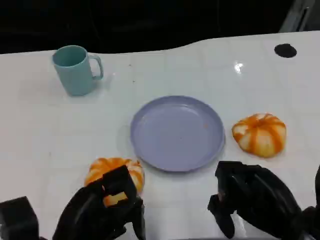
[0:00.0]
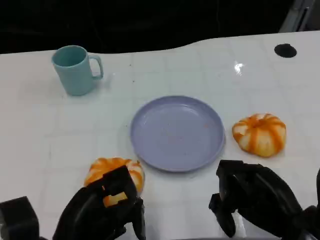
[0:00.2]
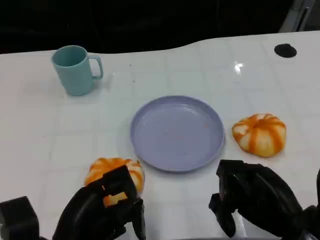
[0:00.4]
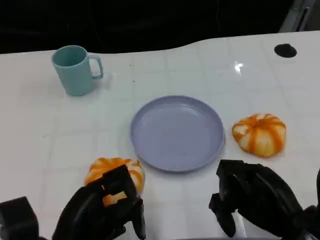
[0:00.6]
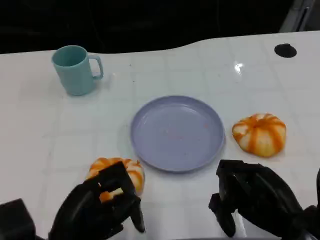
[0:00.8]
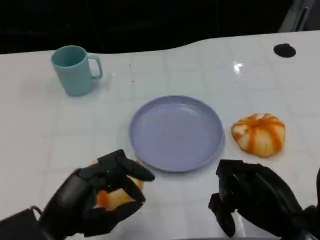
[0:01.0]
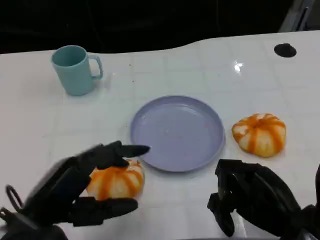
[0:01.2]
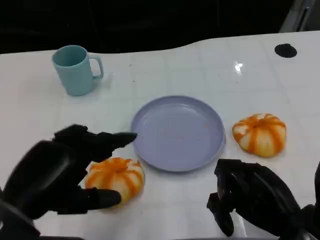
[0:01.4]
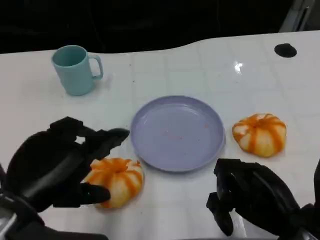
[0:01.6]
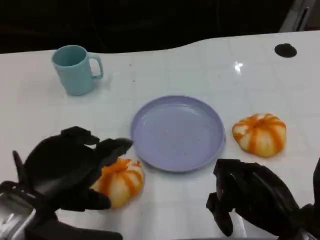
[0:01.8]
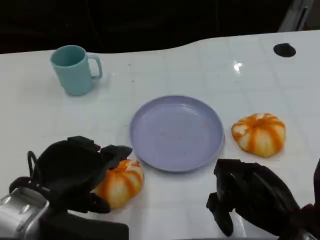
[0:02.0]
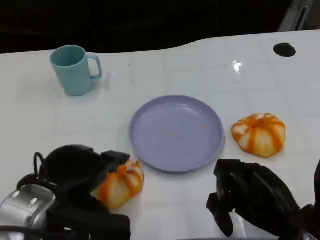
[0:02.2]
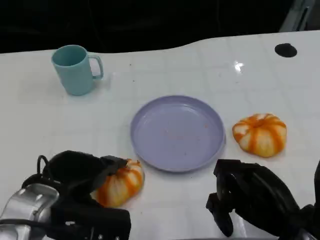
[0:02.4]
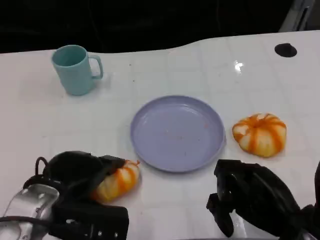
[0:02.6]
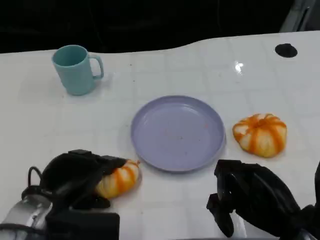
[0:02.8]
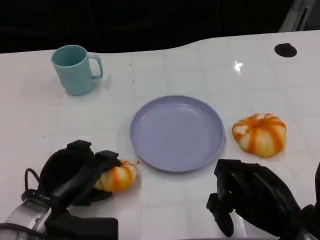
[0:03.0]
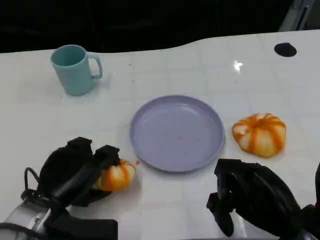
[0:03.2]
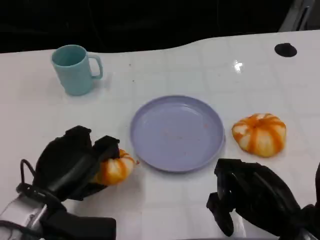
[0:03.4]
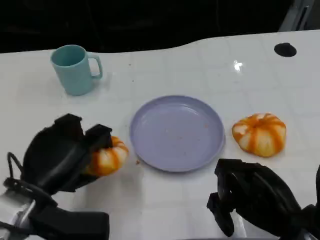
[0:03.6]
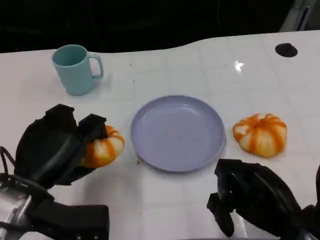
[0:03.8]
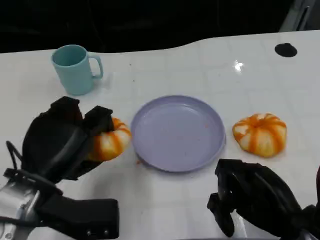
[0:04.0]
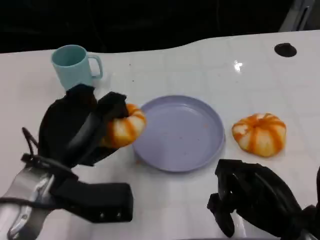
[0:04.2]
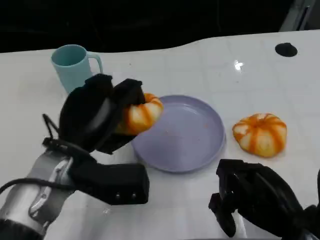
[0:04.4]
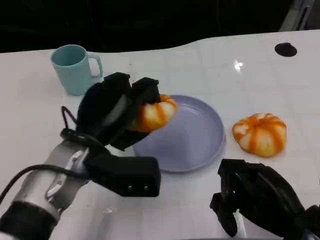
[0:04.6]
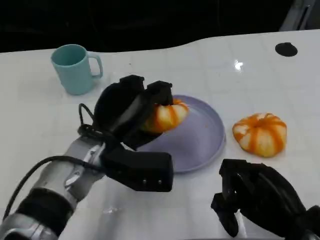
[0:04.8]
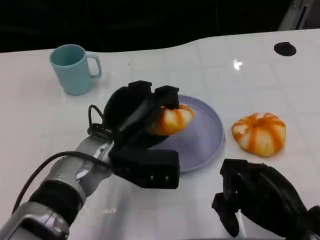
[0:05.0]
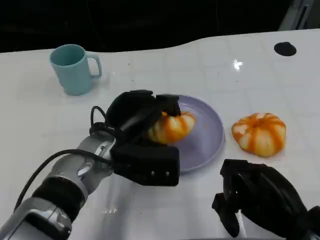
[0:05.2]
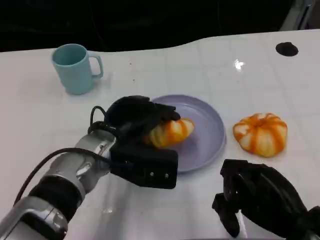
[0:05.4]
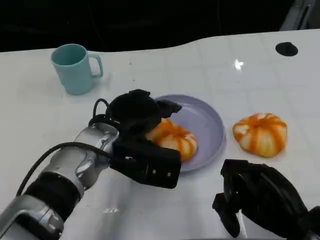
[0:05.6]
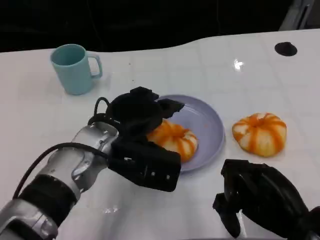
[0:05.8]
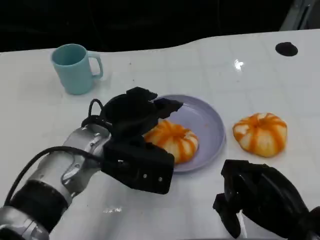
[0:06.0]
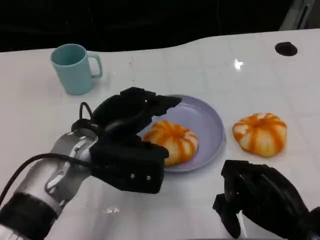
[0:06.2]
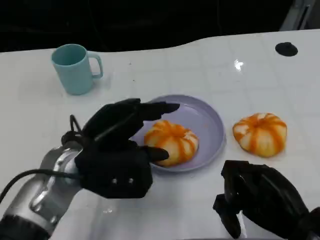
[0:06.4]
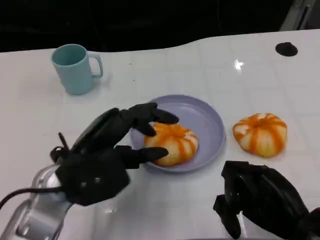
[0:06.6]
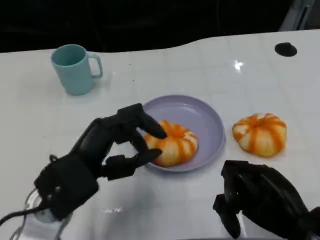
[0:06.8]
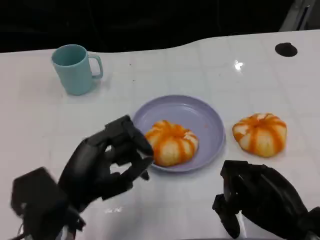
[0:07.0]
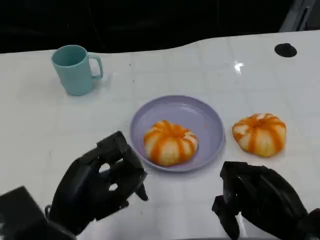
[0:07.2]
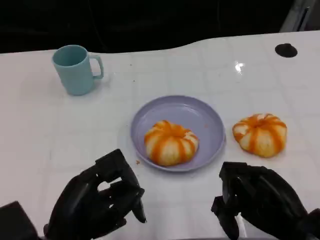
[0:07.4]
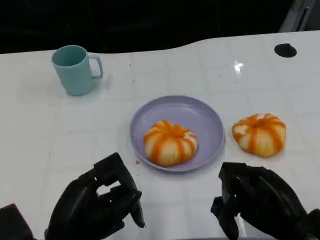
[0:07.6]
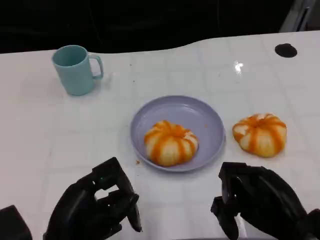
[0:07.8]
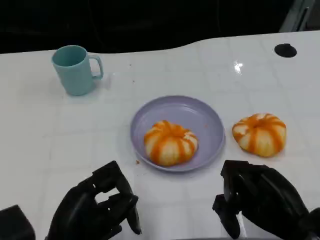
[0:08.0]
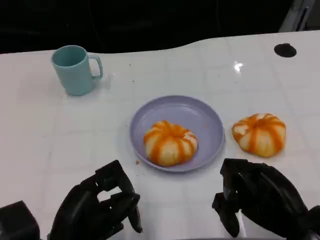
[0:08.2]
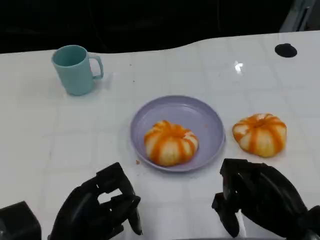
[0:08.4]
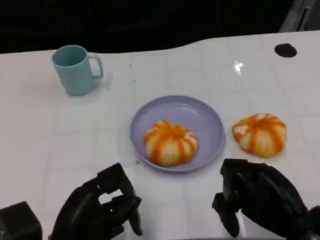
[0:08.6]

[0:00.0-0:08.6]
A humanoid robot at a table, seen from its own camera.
Task of the whole recording: Grasp the bread from the table and place it into the plate.
0:00.0 to 0:01.4: The left hand moves upward, some 10 cm.
0:01.4 to 0:02.8: The left hand is displaced downward and forward by roughly 10 cm.
0:02.8 to 0:04.4: The left hand goes about 5 cm upward.
0:04.4 to 0:05.8: The left hand moves approximately 5 cm.
0:05.8 to 0:07.2: The left hand is displaced backward and to the left by approximately 15 cm.
0:07.2 to 0:08.6: The hands stay close to where they were, moving slightly.

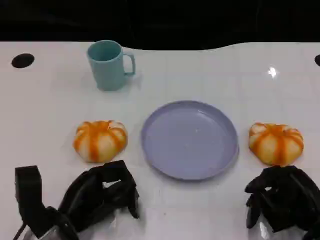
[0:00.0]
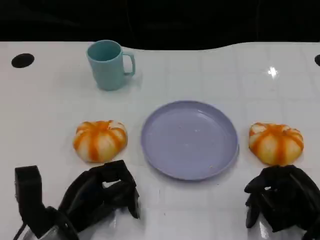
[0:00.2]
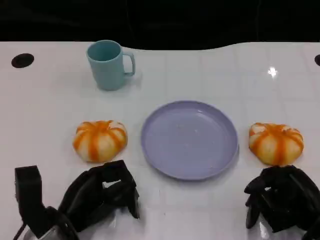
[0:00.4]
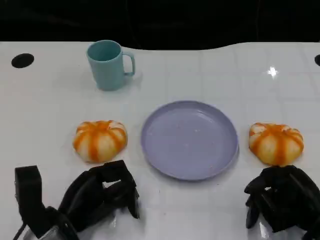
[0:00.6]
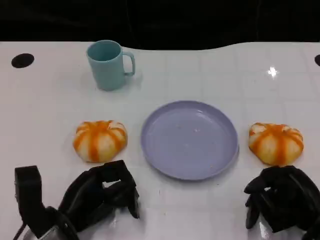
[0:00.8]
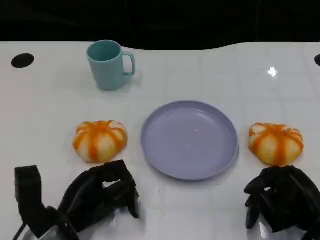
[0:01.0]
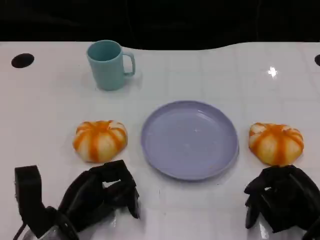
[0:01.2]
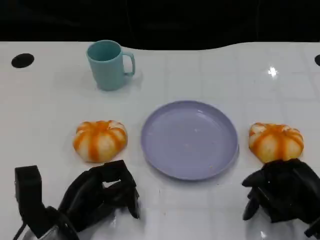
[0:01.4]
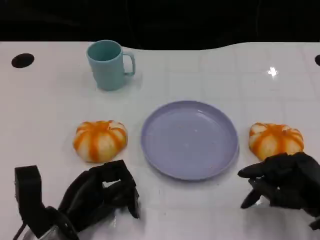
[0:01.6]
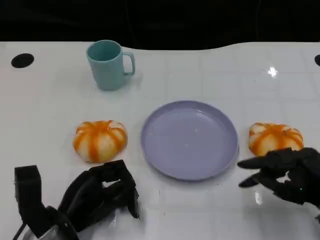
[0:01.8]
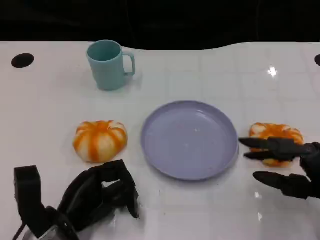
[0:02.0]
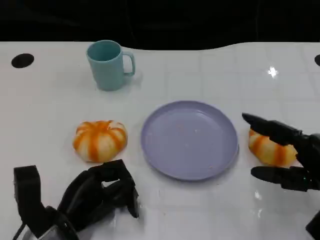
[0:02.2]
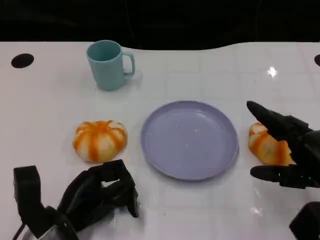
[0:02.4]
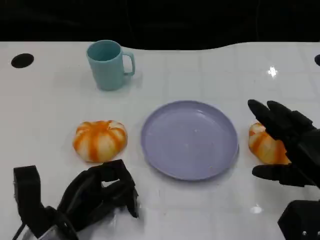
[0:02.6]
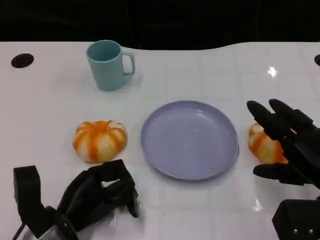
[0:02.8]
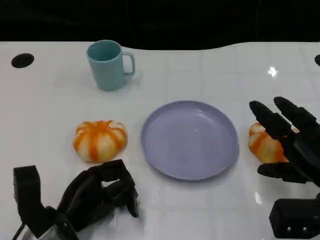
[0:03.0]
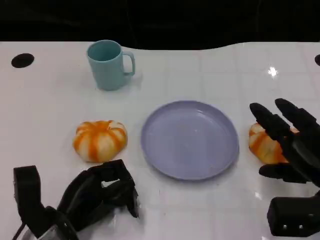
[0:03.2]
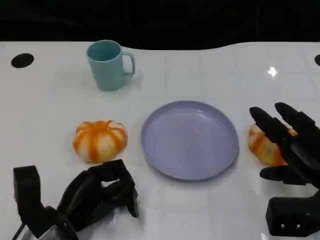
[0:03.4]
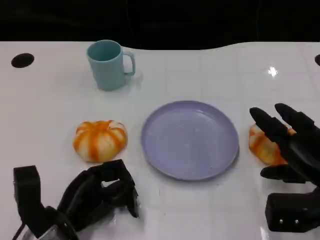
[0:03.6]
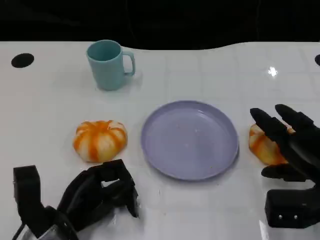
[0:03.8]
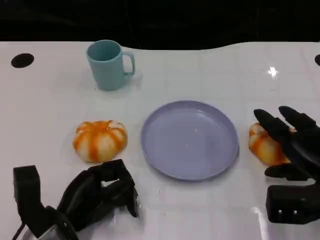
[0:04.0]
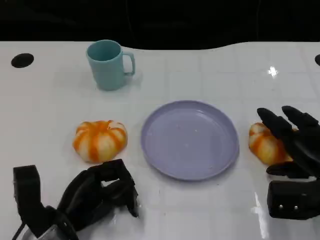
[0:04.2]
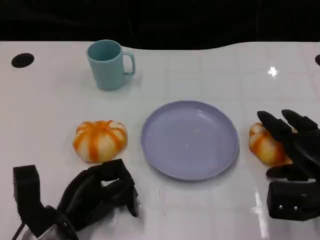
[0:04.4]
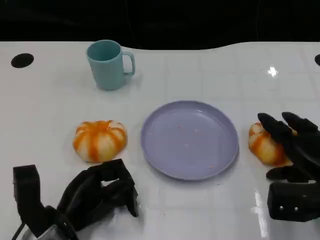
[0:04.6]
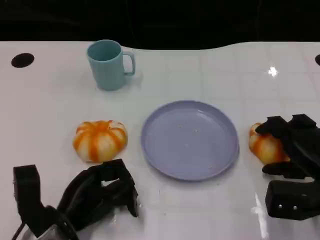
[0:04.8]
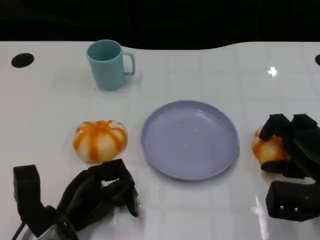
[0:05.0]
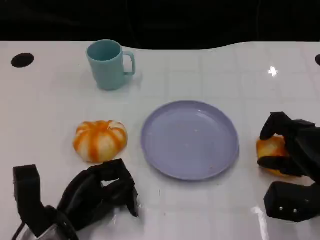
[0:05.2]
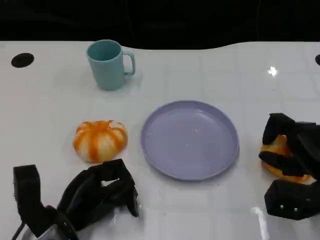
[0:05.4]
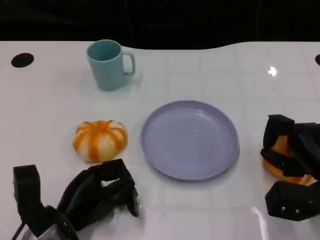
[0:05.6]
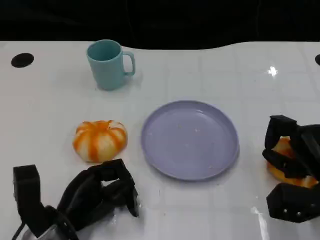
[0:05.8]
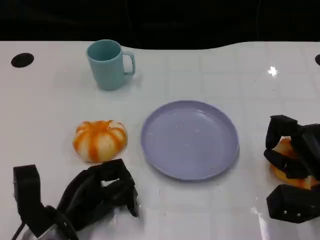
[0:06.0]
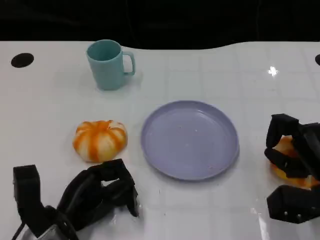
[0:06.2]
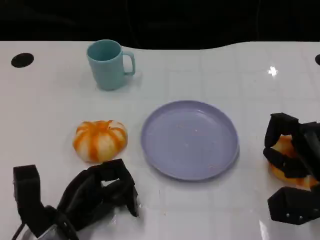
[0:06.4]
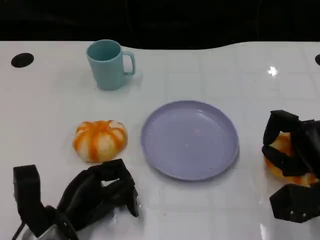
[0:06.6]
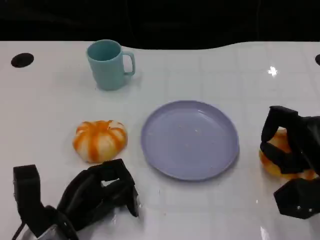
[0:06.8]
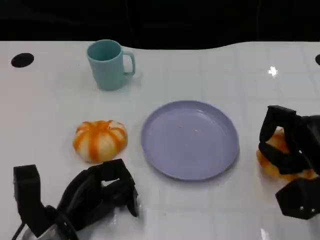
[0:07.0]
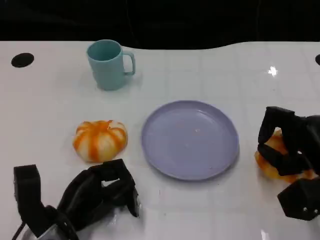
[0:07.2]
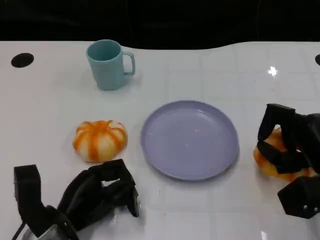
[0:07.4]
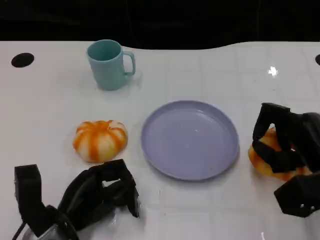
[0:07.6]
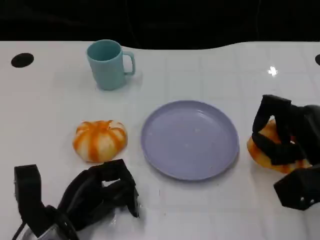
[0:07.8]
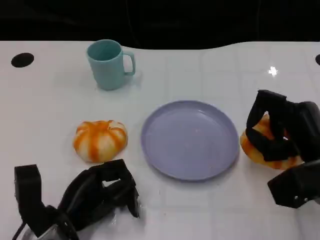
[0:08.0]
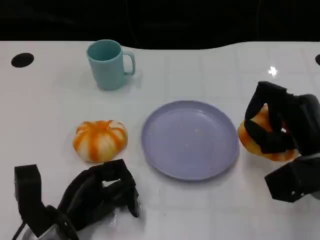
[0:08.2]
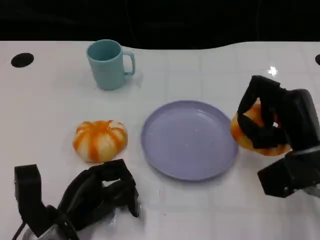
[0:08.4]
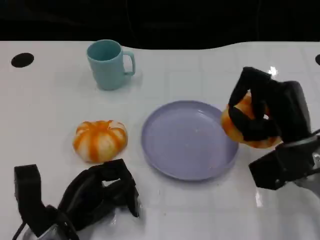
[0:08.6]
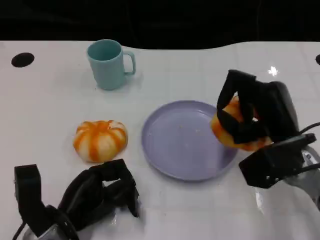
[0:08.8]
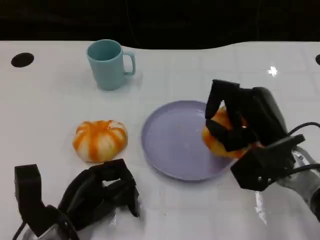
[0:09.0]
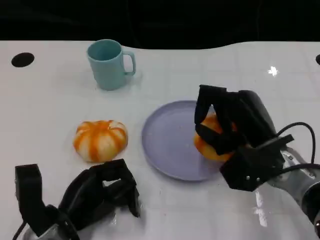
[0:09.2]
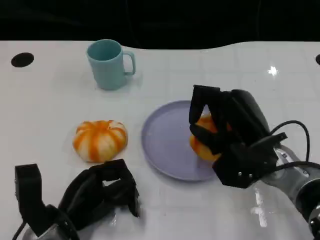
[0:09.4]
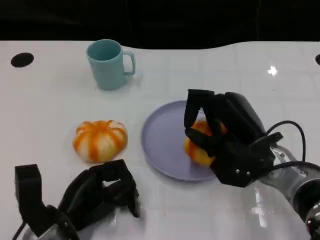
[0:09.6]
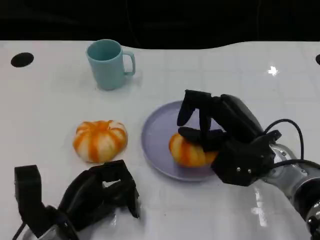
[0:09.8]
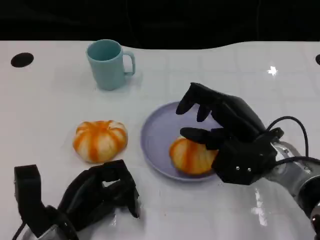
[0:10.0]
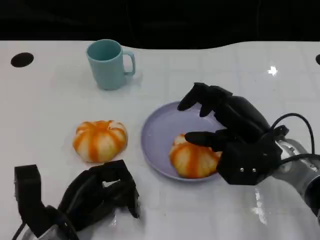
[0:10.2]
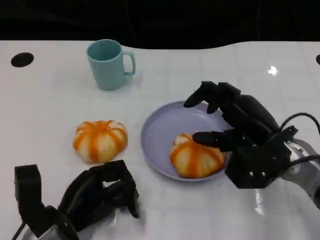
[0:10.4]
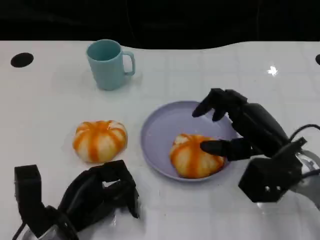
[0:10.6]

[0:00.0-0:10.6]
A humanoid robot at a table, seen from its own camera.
Task of the whole recording: Grasp the bread from the table and place it into the plate.
0:03.0 to 0:04.6: The hands move only a little.
0:07.6 to 0:09.0: The right hand goes some 5 cm to the left.

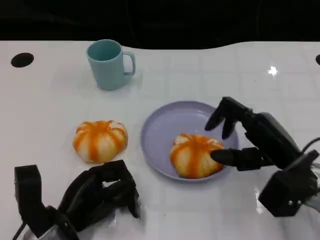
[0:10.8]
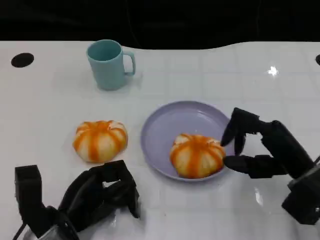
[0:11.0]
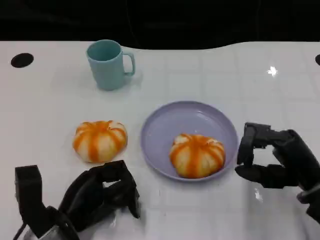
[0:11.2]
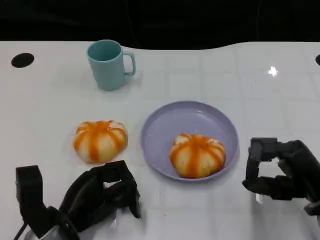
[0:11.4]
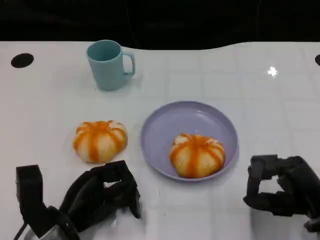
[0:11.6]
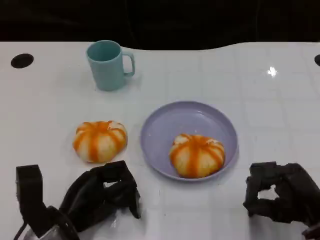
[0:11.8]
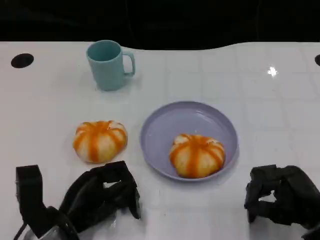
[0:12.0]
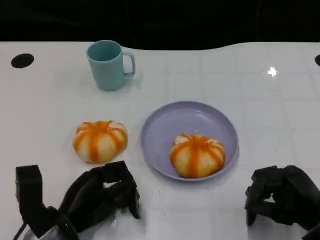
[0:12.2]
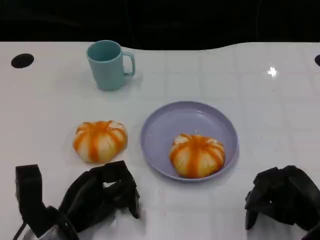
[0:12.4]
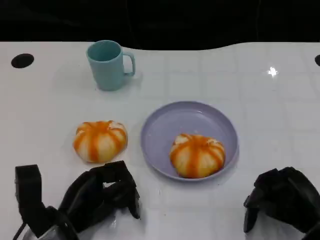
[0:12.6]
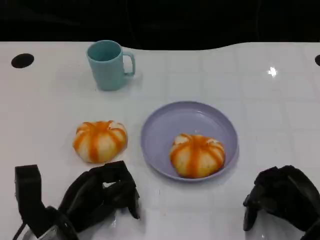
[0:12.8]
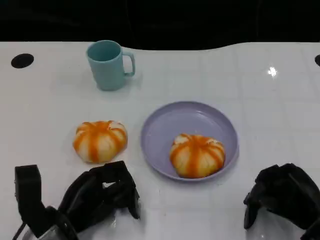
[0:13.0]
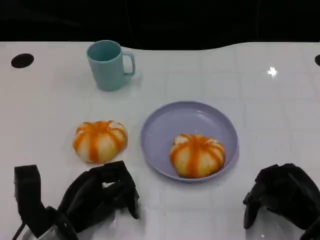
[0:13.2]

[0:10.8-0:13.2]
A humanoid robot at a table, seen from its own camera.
Task of the whole recording: Grasp the bread from the table and place it into the plate.
0:10.8 to 0:12.0: The right hand is displaced backward and downward by approximately 10 cm.

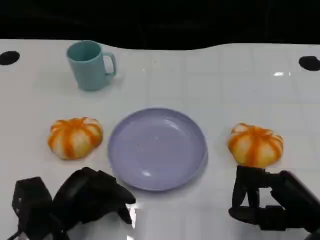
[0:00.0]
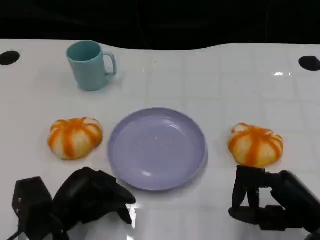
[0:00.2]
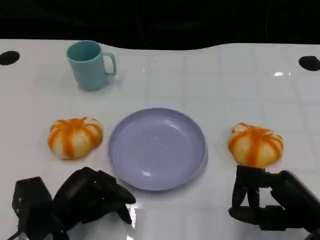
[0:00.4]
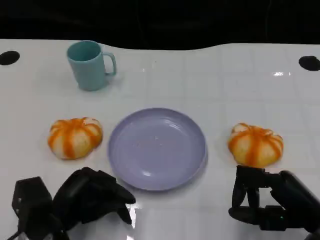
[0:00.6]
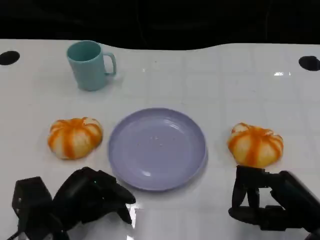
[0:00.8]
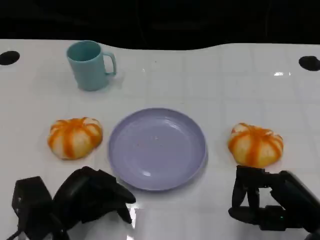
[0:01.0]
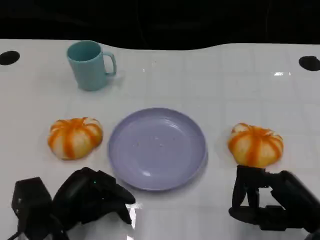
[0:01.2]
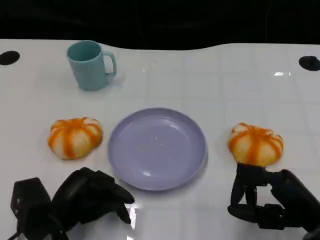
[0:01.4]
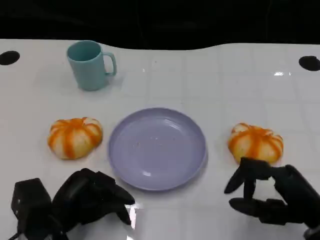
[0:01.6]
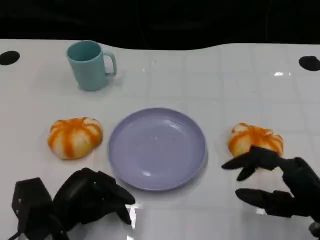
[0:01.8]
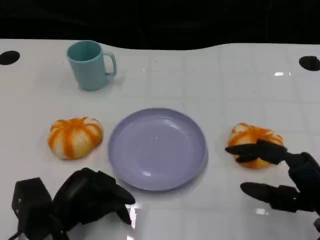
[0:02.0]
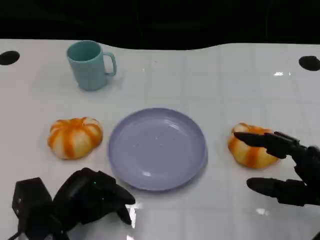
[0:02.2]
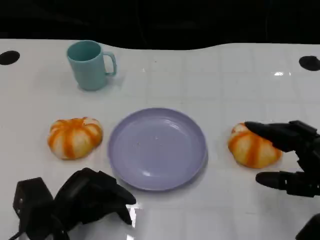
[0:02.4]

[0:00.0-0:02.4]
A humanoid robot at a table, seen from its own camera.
Task of the whole recording: Grasp the bread from the table and place it into the plate.
0:00.0 to 0:01.2: The two hands keep their place.
0:01.2 to 0:02.4: The right hand shifts by some 5 cm.
